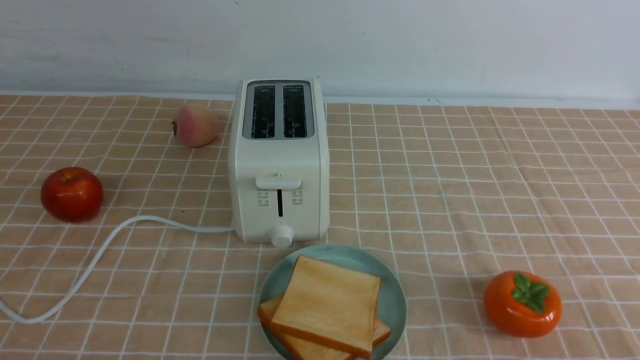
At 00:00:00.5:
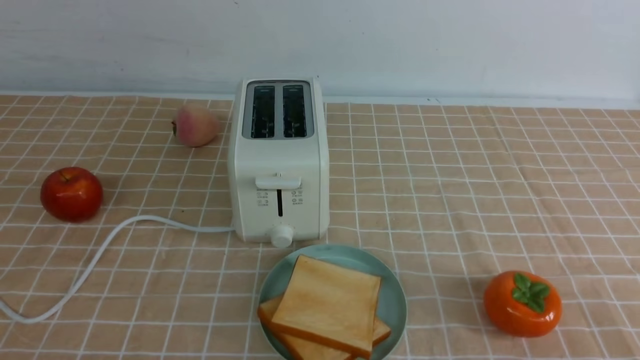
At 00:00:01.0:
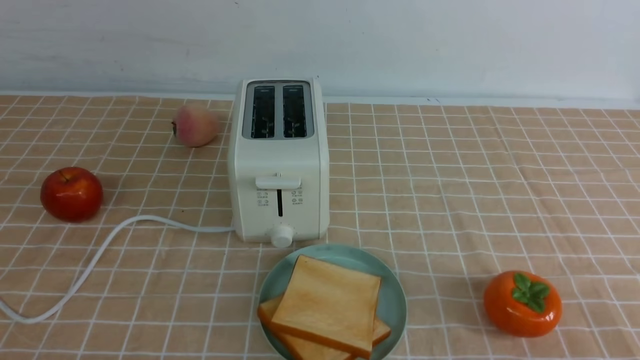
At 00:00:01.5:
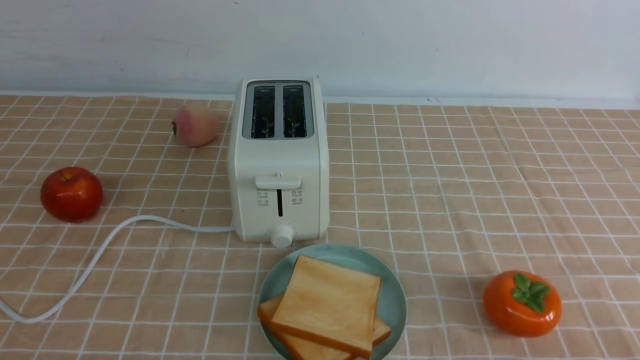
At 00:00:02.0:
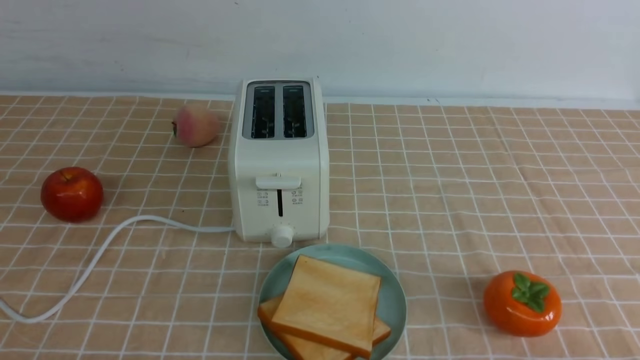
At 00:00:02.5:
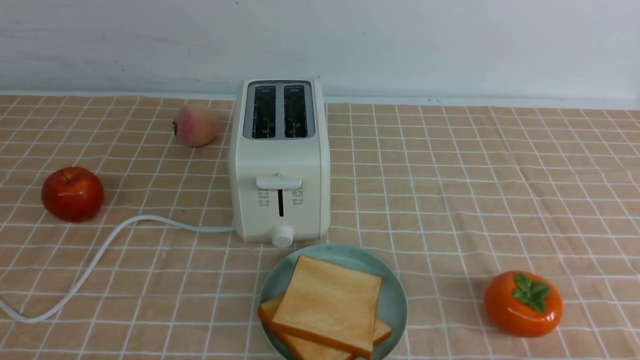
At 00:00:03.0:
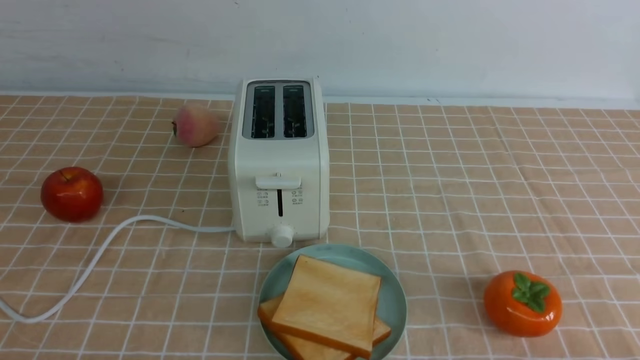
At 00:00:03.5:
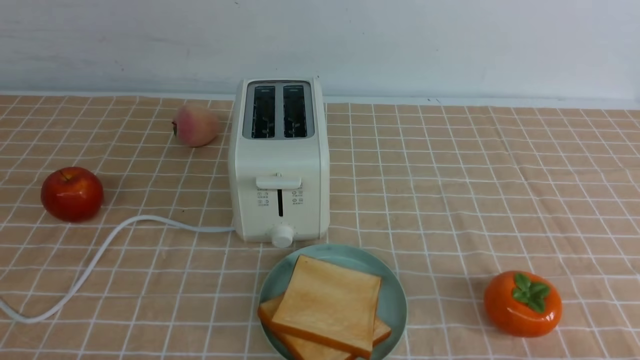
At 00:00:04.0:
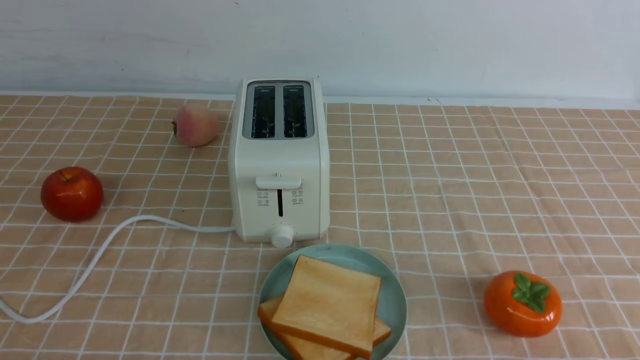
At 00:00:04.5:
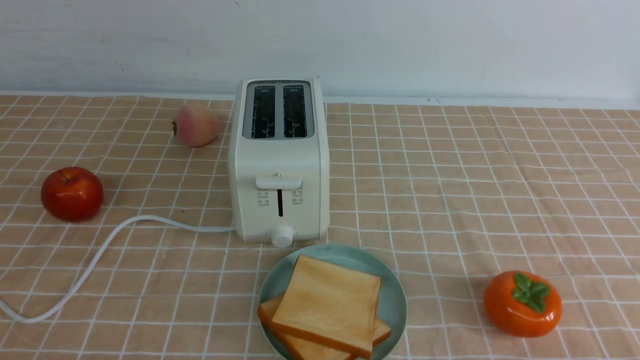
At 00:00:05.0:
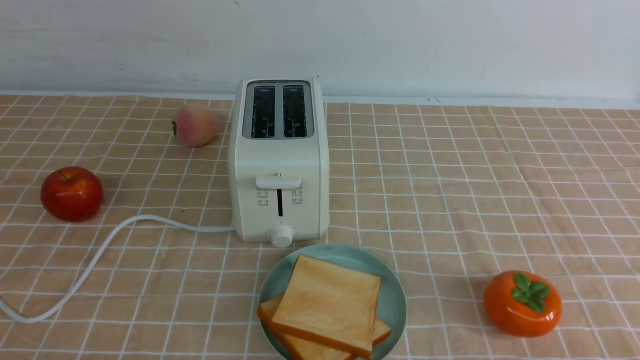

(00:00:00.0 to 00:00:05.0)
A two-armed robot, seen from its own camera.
Task of the whole recording: take toasted bread from bread machine on light coffee tablecloth place on plate.
00:00:02.5 - 00:00:05.0: Neither gripper changes place.
